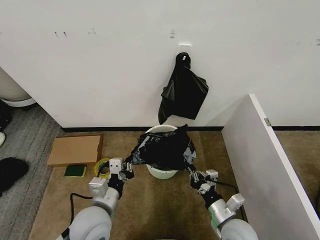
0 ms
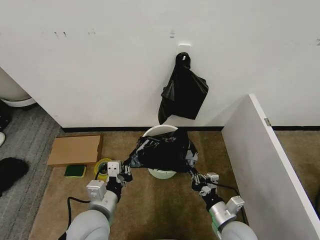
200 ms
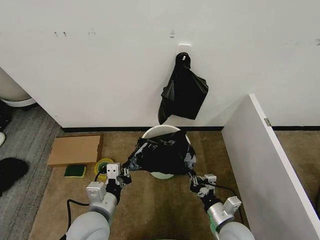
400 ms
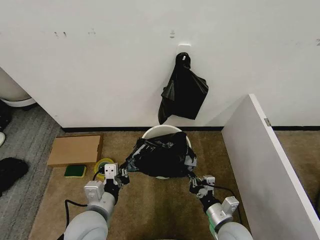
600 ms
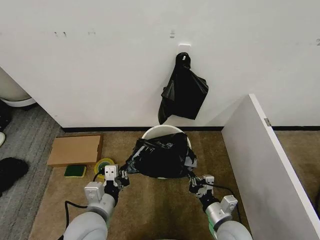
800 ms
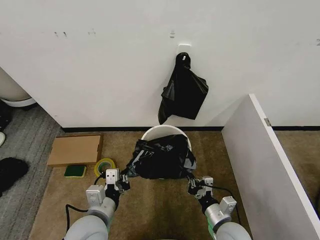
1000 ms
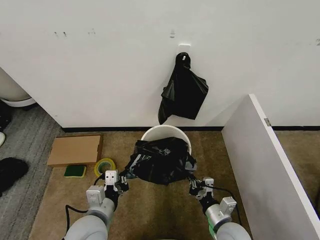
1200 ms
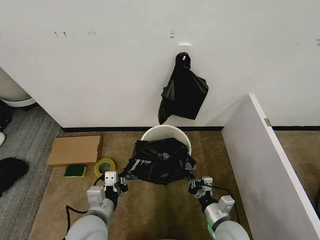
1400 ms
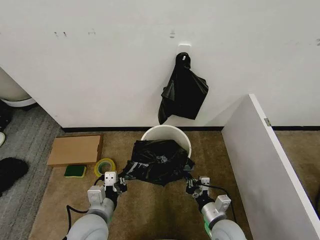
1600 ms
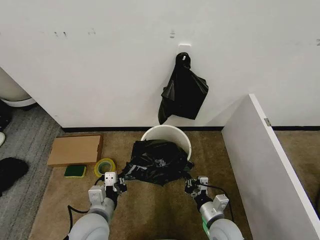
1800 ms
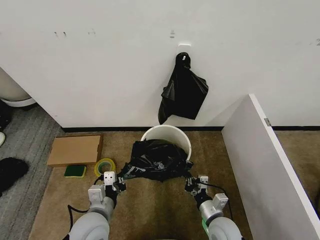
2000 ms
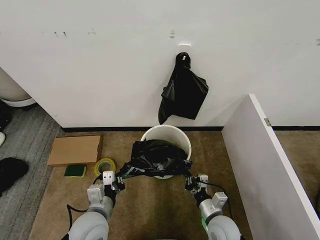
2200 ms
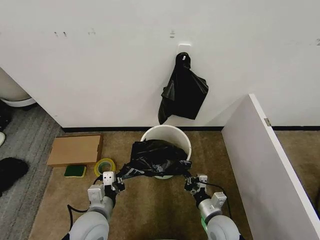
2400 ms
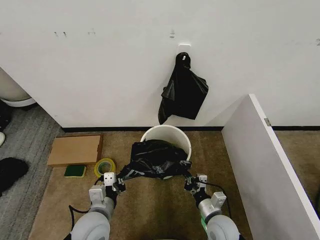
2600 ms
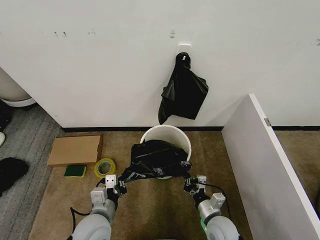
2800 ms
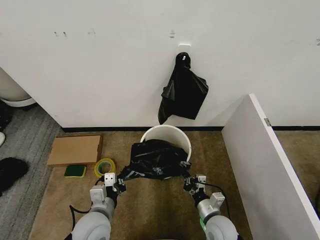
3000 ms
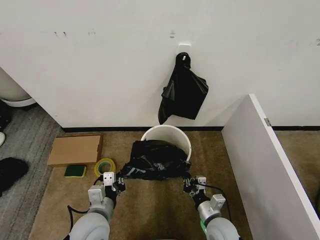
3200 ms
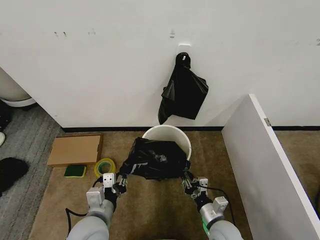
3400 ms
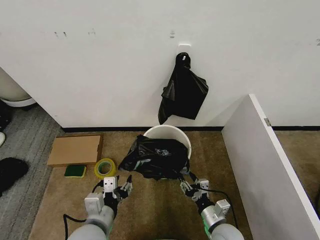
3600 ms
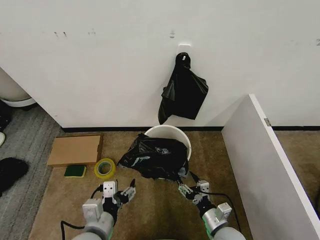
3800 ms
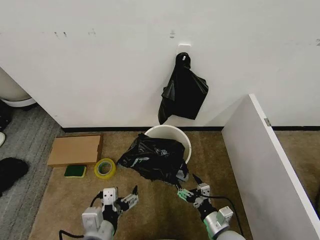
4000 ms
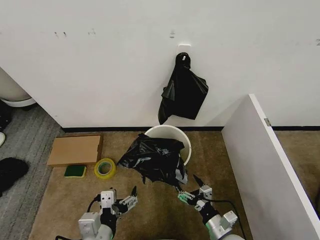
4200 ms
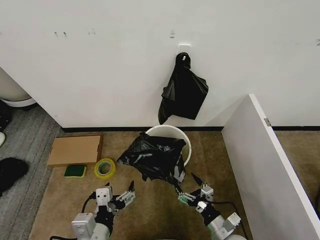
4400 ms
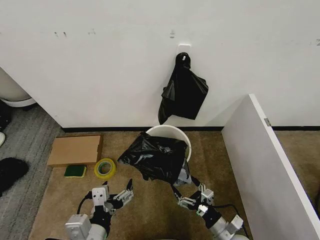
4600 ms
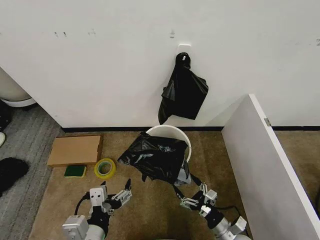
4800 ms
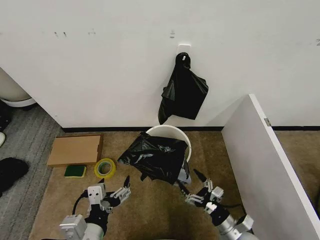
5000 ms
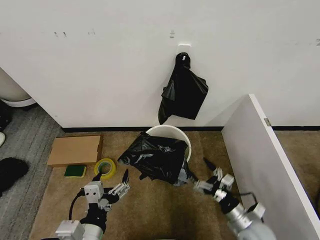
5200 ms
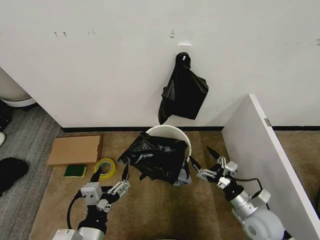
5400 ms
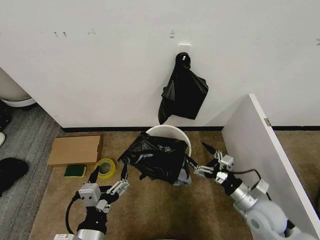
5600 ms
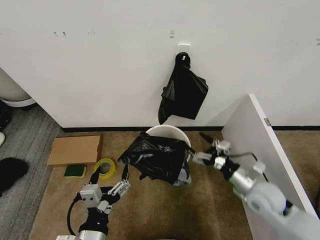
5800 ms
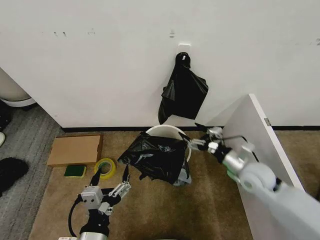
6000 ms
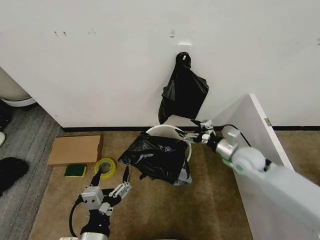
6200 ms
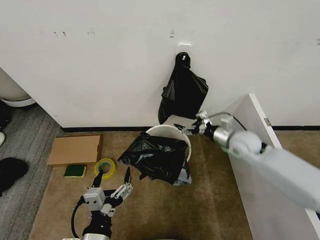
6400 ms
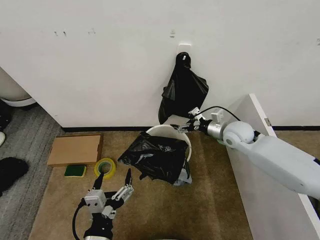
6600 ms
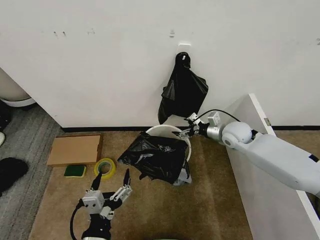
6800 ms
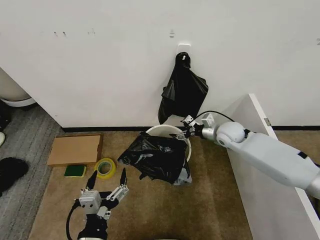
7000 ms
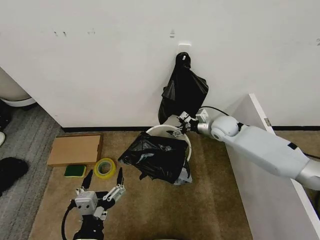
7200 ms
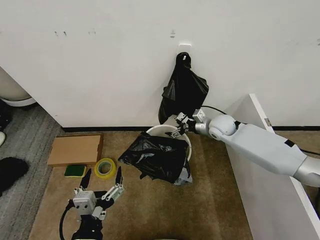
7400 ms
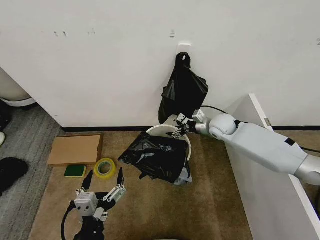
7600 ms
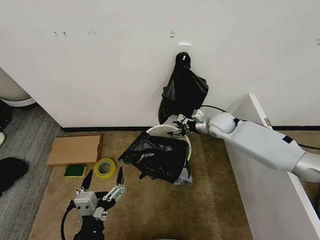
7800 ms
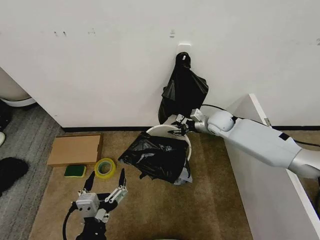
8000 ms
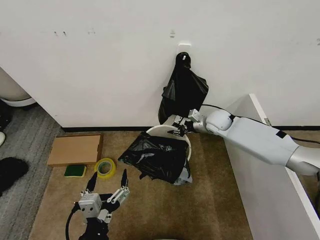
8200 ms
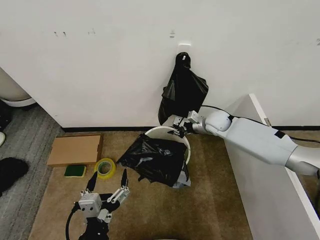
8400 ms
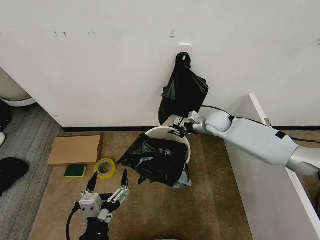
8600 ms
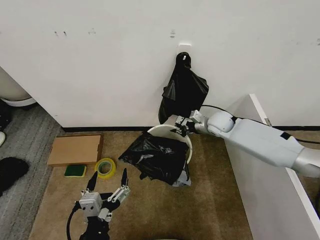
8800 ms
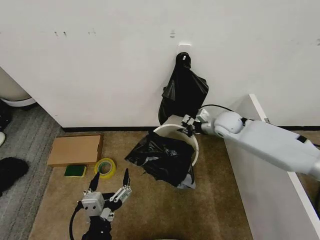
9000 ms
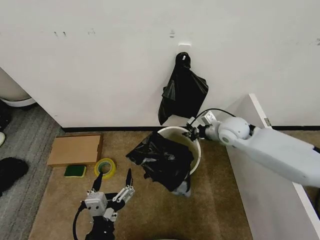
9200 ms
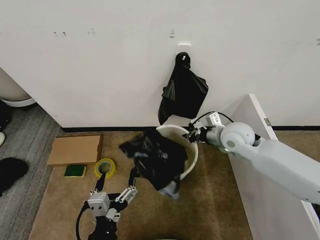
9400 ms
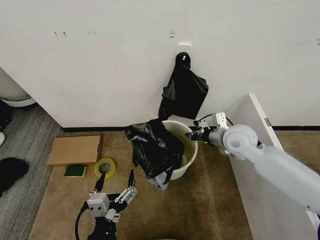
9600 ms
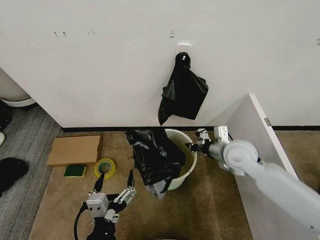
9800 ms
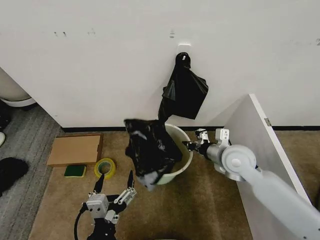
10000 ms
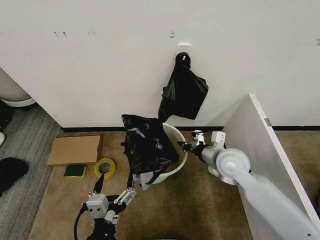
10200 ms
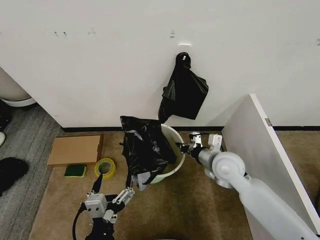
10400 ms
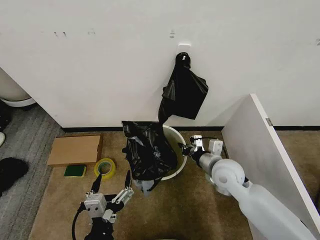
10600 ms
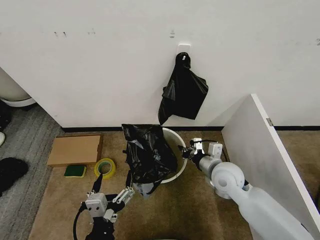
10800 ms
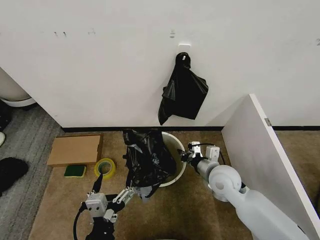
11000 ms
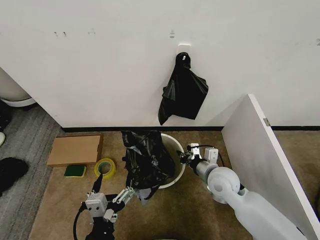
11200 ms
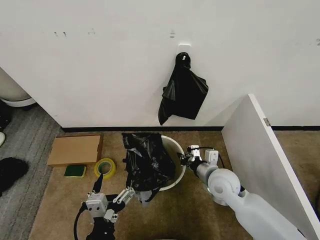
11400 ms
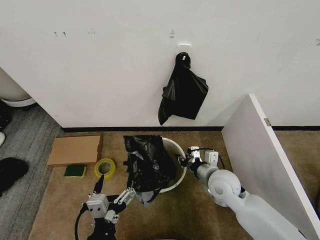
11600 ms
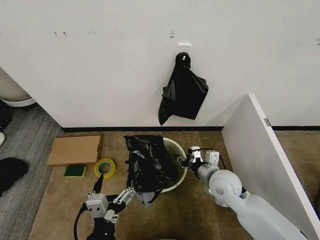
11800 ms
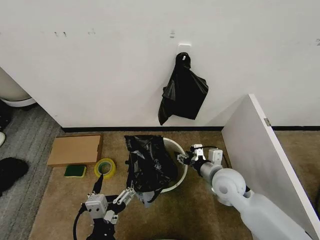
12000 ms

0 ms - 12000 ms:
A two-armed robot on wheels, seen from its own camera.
Task of the whole recording: Place the garbage bag over the trash bin.
0 ms - 1600 ms: There are only small adjustments of the grippers.
1600 ms - 3000 ms: The grippers make only small movements.
3000 ms - 4400 ms: The left gripper moves backward and upward, about 10 cm, and opens, while the right gripper heads backward, covering roughly 5 cm, and opens.
4400 ms - 6000 ms: The right gripper goes about 25 cm upward, forward and to the right.
6000 ms - 7600 ms: The right gripper goes roughly 20 cm forward.
7600 ms - 9000 ms: The right gripper closes.
9000 ms - 10400 ms: The right gripper is displaced backward by roughly 15 cm.
10400 ms - 12000 ms: The right gripper opens up.

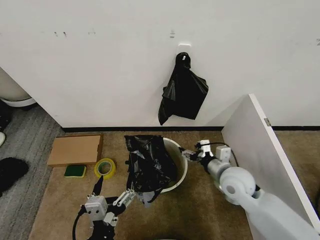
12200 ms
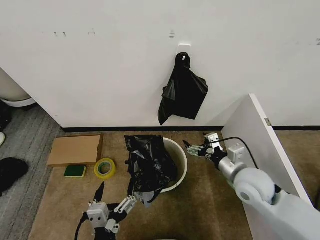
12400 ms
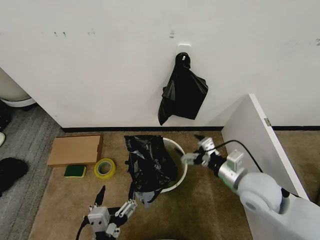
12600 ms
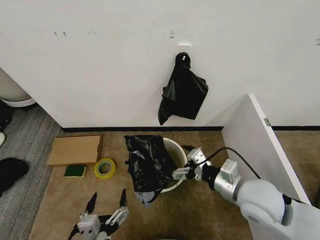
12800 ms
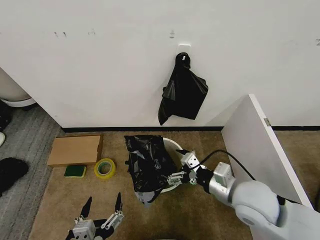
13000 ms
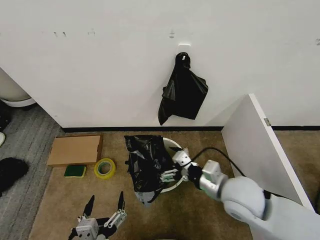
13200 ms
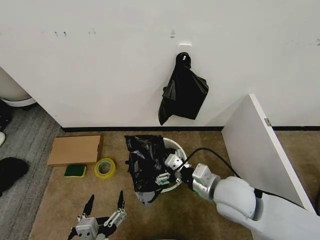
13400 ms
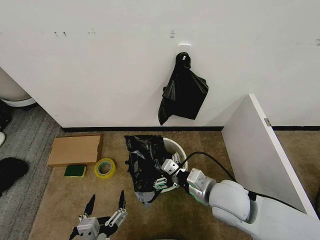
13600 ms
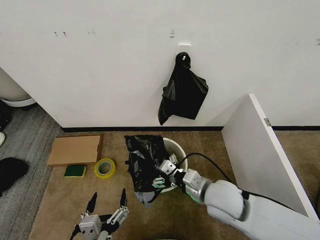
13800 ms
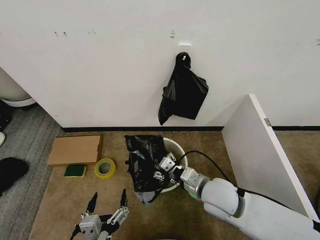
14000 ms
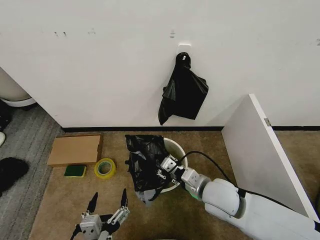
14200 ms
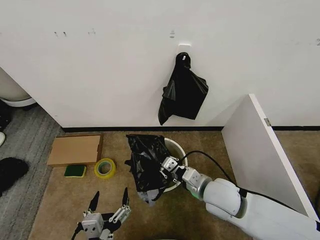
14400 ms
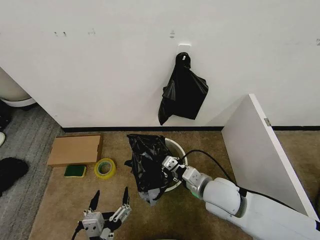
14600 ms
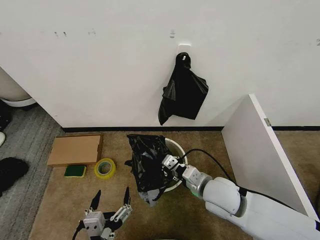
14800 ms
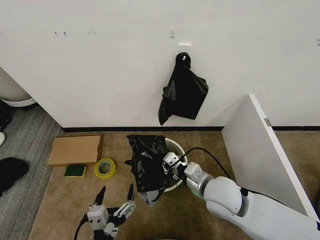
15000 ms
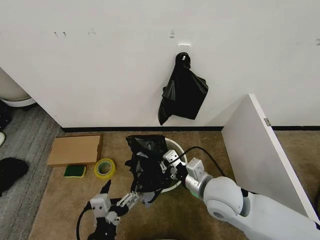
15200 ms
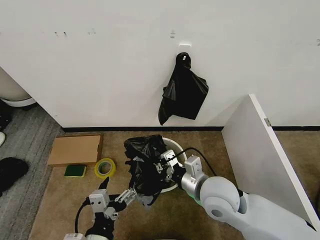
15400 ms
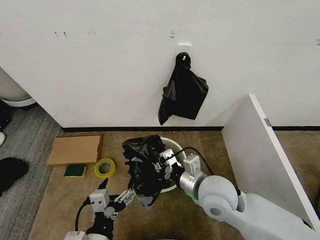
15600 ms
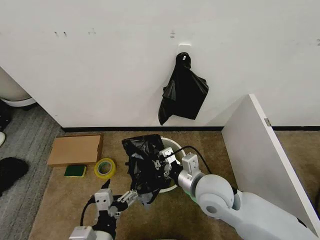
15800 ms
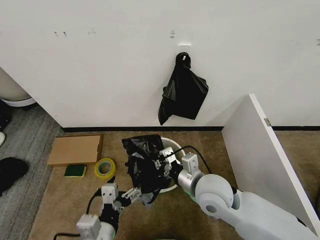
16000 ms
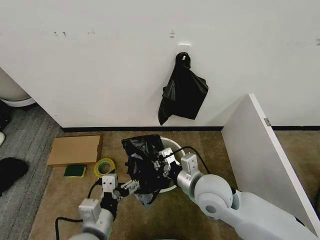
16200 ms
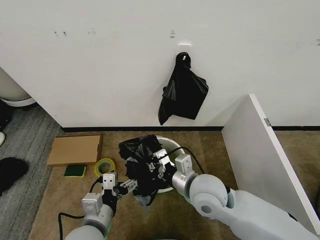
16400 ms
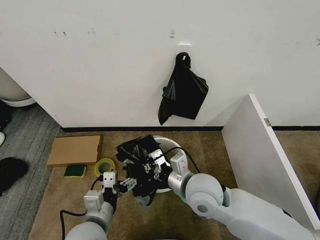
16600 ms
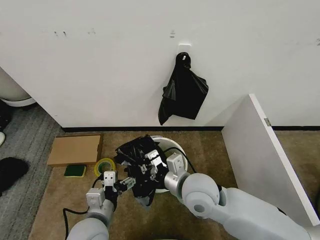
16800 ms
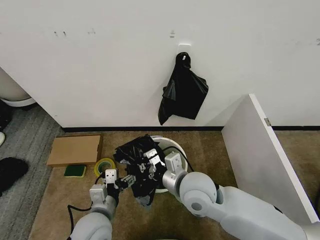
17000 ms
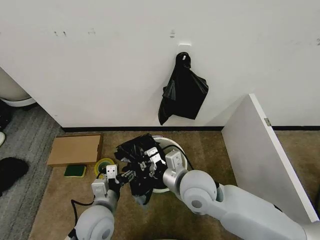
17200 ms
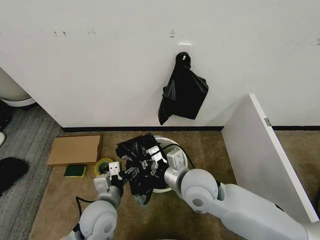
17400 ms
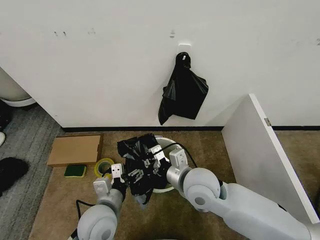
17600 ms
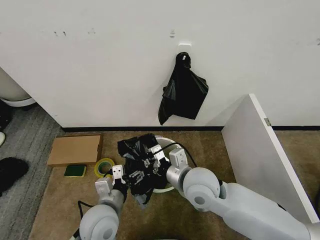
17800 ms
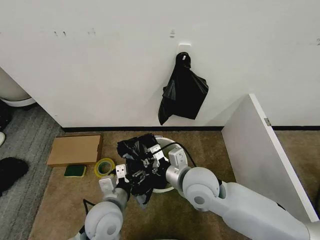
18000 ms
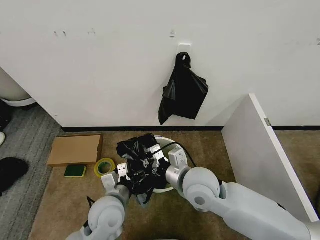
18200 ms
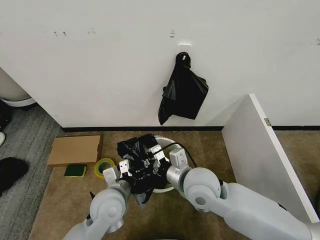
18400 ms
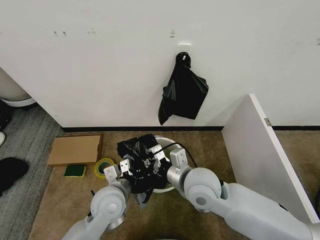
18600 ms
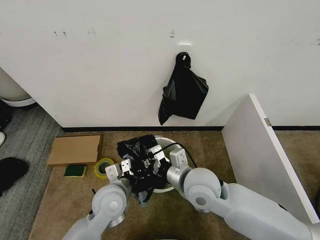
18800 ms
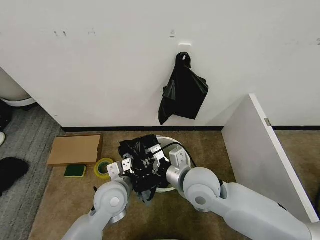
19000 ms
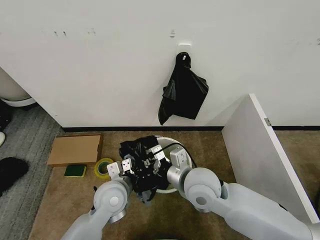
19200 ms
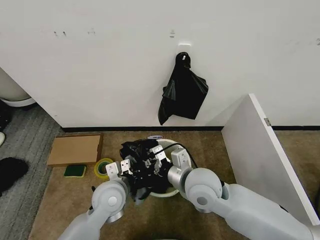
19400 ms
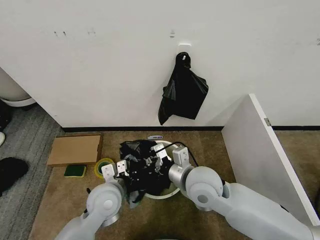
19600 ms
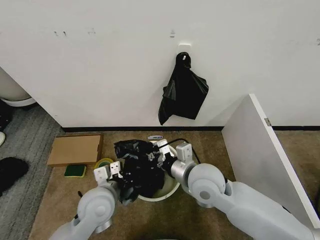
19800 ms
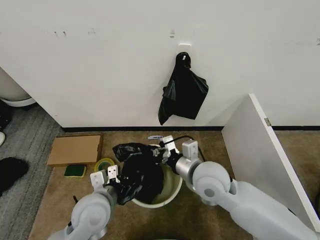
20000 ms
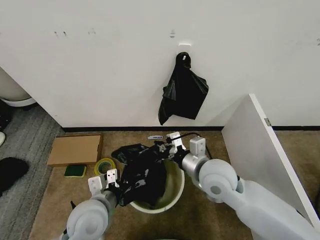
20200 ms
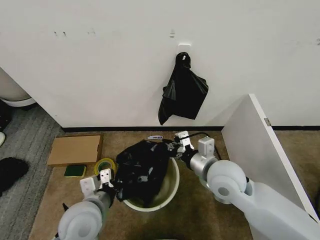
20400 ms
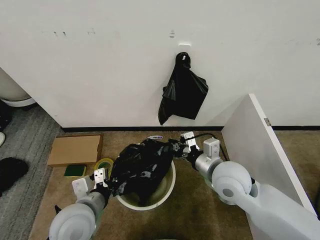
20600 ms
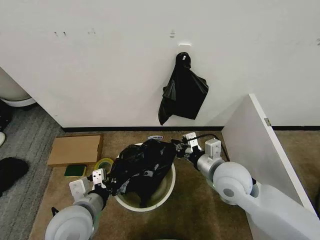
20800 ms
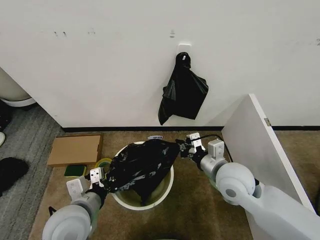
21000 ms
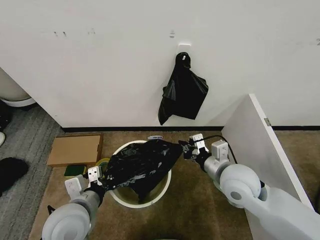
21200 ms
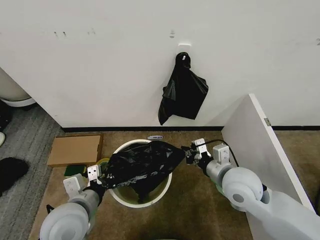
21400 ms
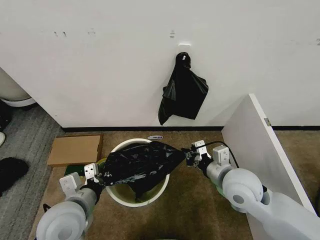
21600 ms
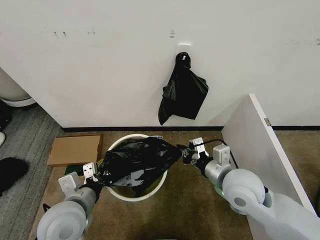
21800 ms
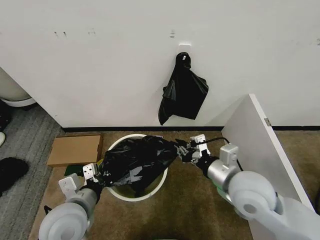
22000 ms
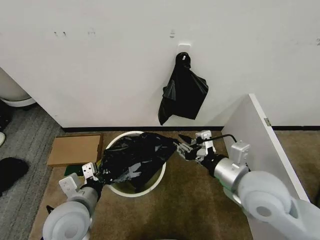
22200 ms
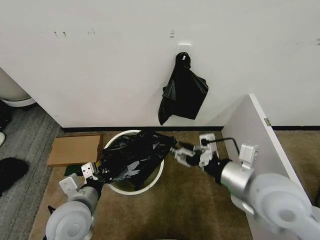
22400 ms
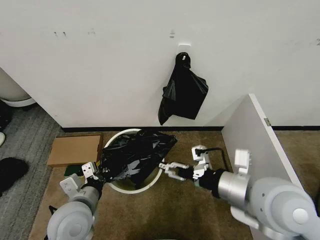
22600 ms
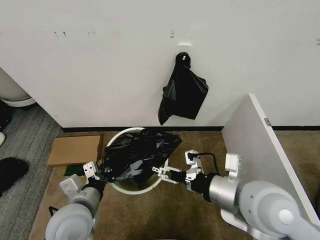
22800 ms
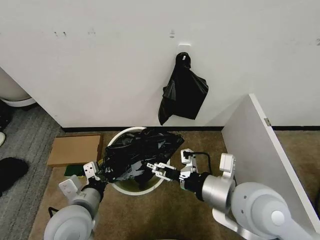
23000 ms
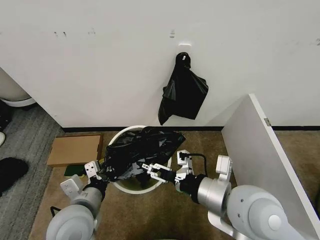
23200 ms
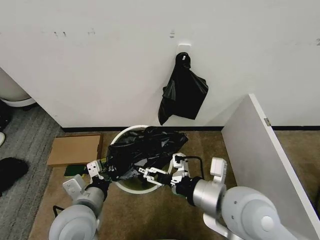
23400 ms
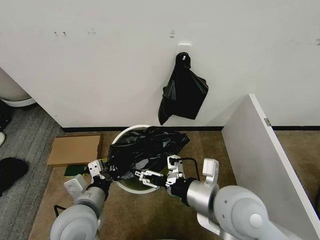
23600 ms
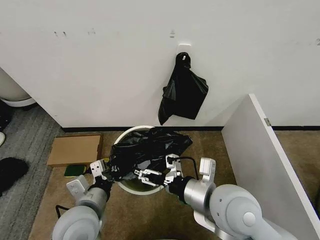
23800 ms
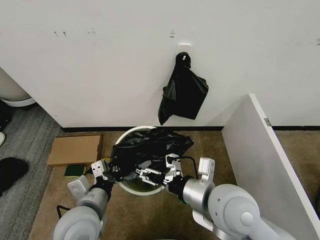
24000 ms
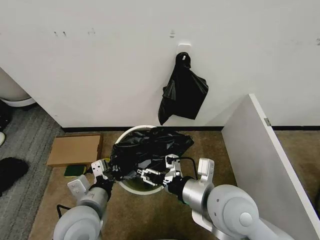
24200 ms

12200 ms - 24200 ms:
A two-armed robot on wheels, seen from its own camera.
Task of the whole recording: Place the garbage bag over the trash bin.
12200 ms - 13800 ms: The right gripper is displaced to the left and backward by about 10 cm.
13800 ms - 15200 ms: The right gripper closes. Meanwhile the left gripper moves approximately 5 cm.
15200 ms - 16600 ms: The left gripper travels forward by roughly 10 cm. Meanwhile the right gripper changes place by some 5 cm.
16600 ms - 18200 ms: The left gripper is displaced forward by roughly 5 cm.
18200 ms - 19800 ms: The left gripper closes its fingers.
19800 ms - 21200 ms: The left gripper shifts approximately 5 cm backward, while the right gripper travels to the right by some 10 cm.
21200 ms - 22600 ms: The right gripper moves backward and upward, approximately 10 cm, and opens its fingers.
22600 ms - 24200 ms: The right gripper is displaced to the left by roughly 5 cm.
